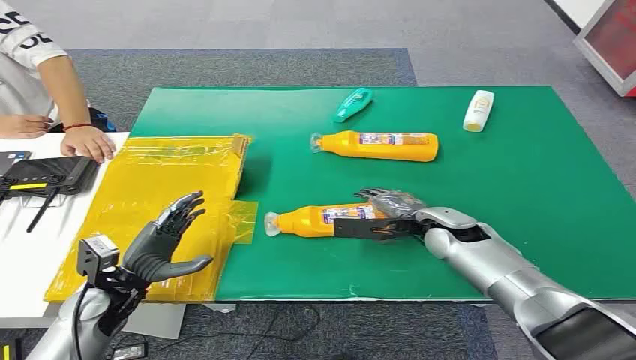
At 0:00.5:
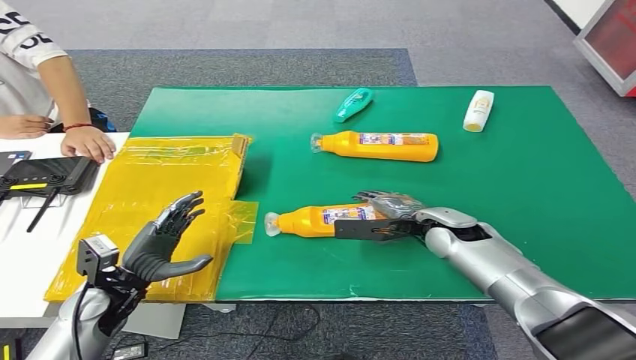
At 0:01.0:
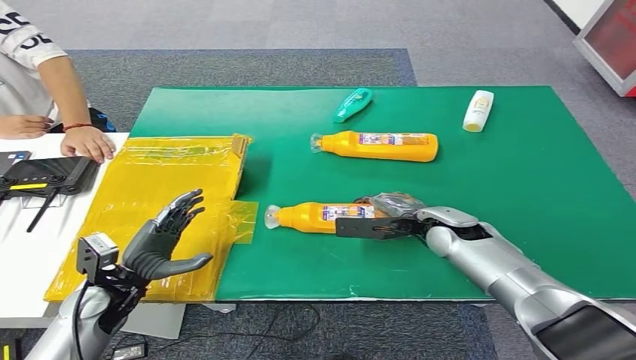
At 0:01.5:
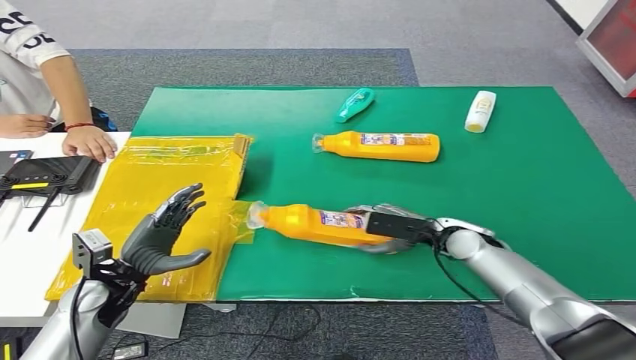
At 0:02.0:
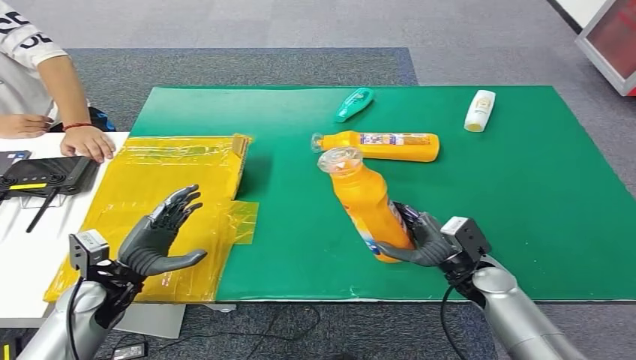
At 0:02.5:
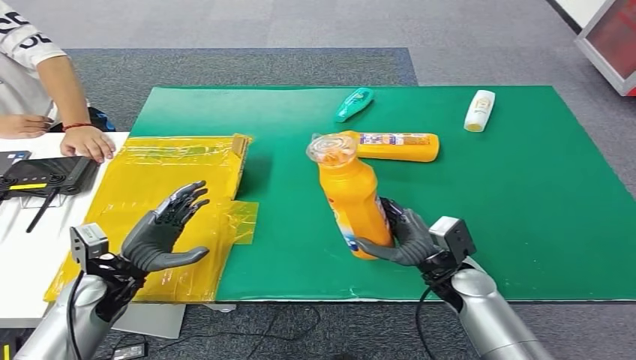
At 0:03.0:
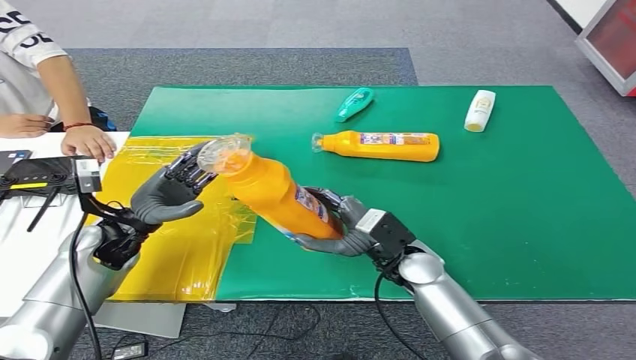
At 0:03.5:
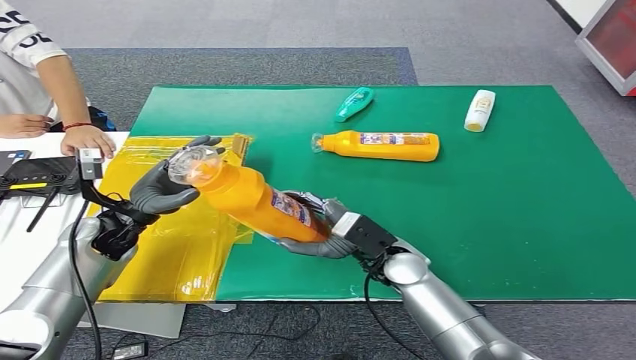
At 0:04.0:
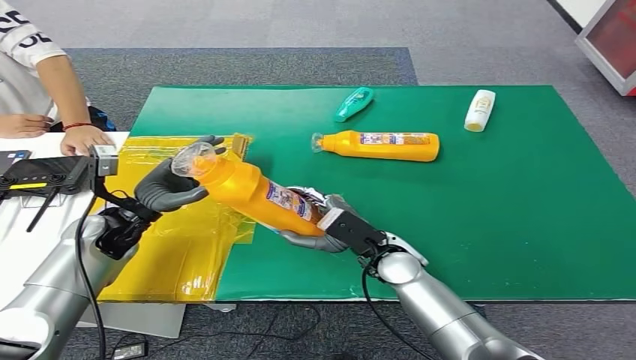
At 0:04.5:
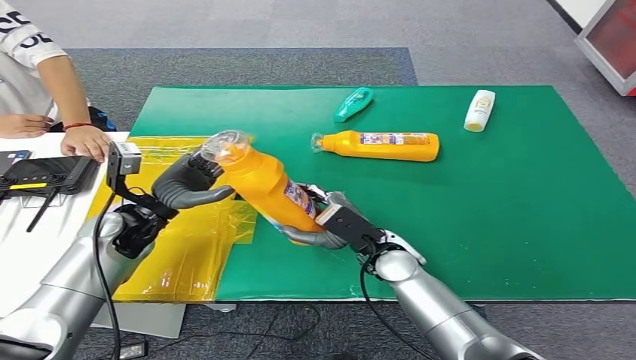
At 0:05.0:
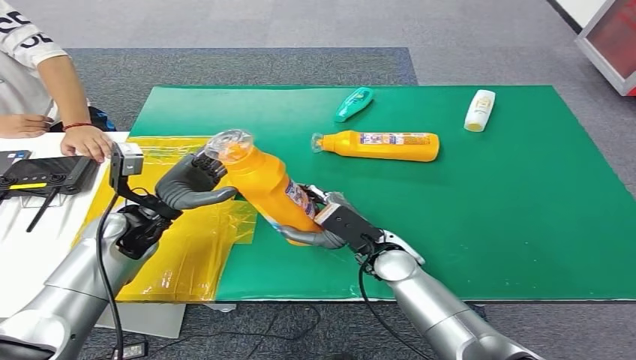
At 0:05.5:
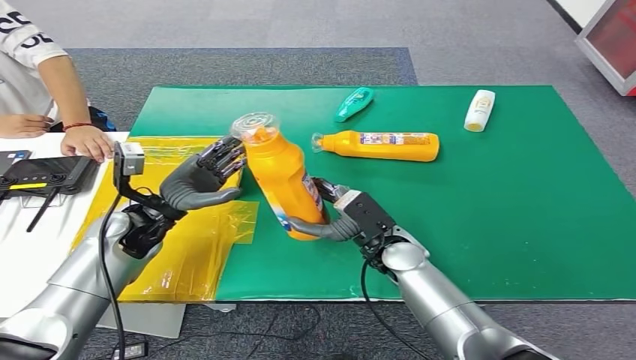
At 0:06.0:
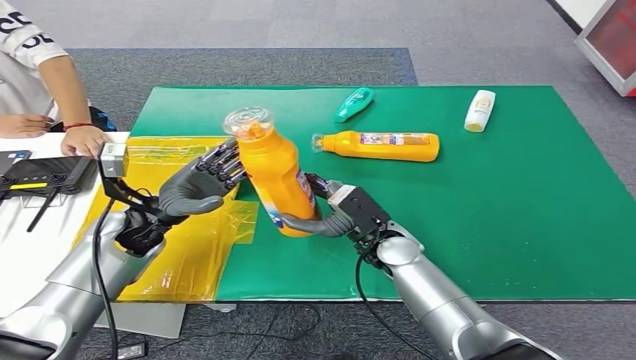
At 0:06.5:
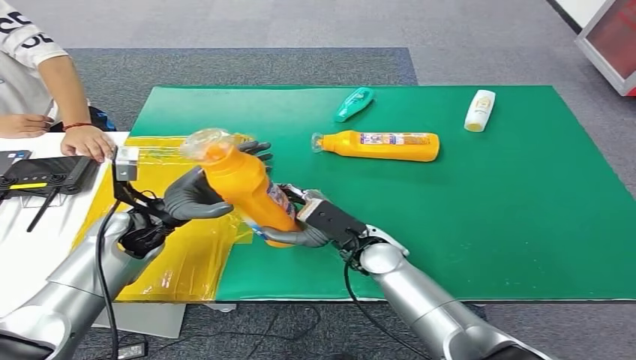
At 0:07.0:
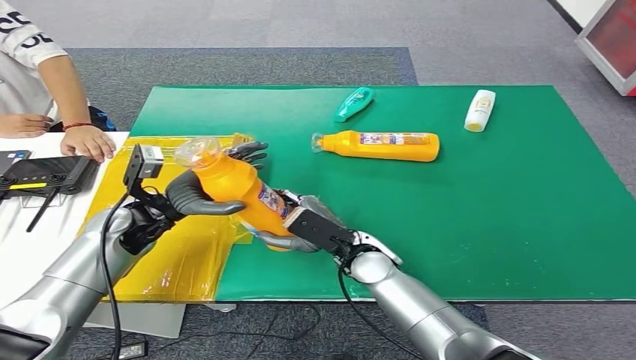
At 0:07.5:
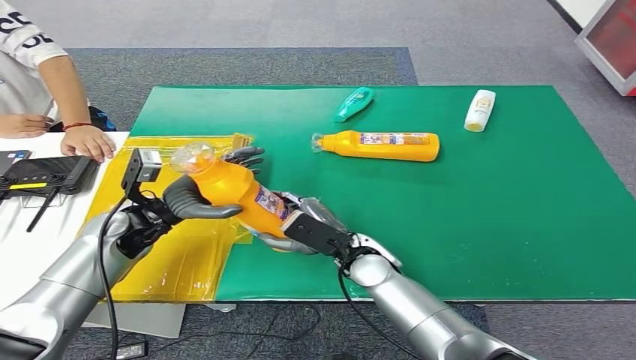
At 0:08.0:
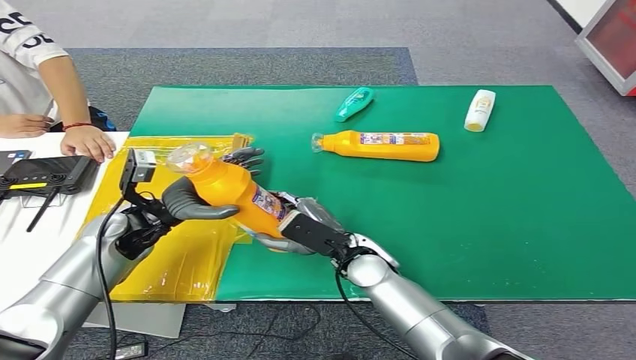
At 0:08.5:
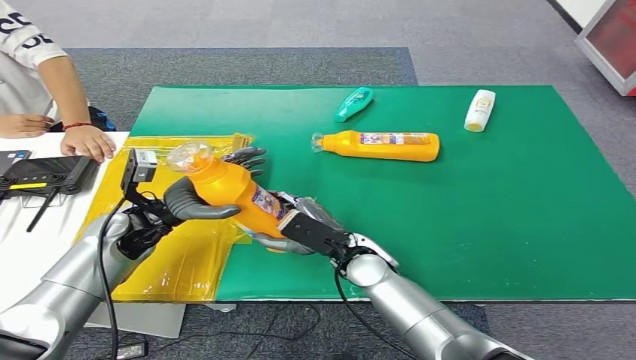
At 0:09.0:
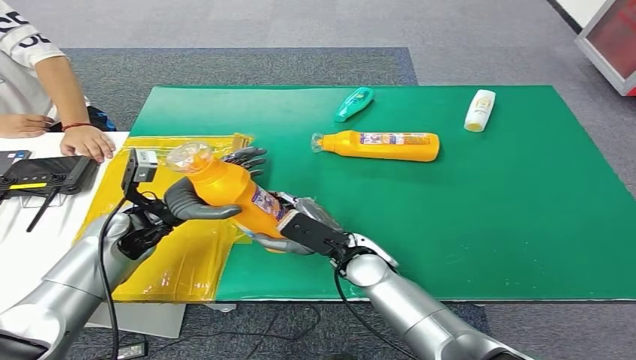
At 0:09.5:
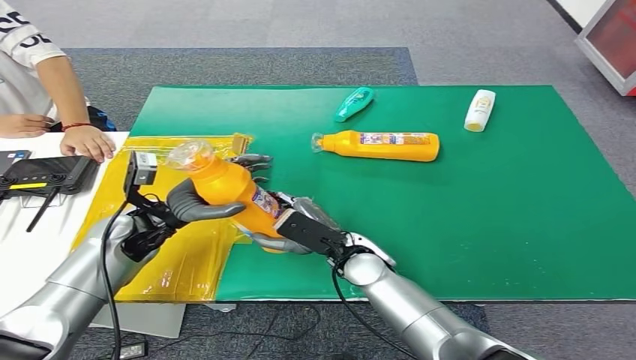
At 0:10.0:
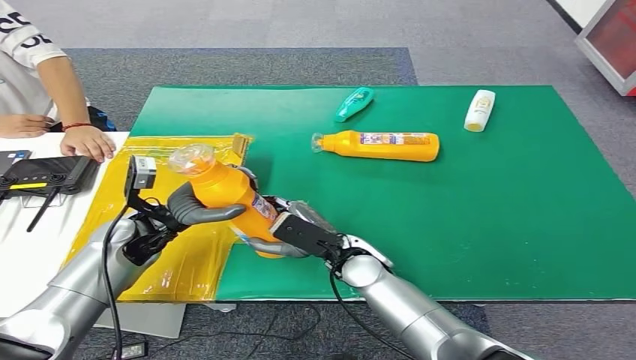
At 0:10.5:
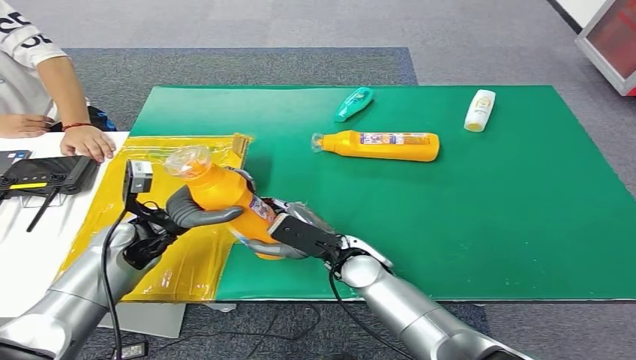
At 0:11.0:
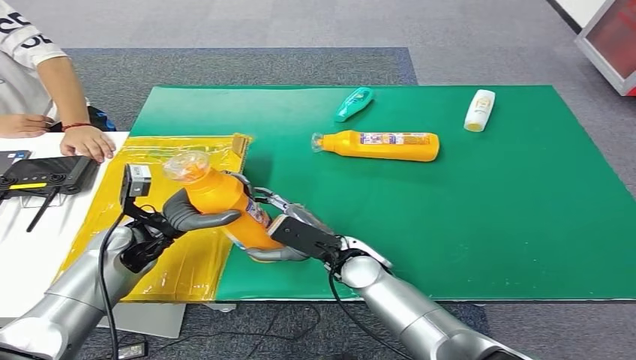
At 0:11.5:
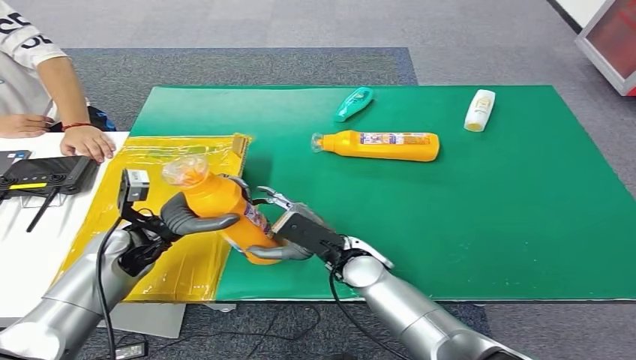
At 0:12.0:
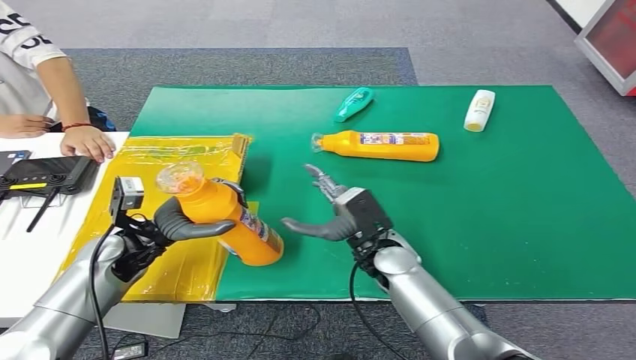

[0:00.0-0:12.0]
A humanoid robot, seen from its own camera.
Step, 0:00.0 to 0:02.0: Pick up the bottle from the table.
0:04.0 to 0:06.0: The left hand ends up roughly 5 cm from where it was.
0:08.0 to 0:10.0: The hands make only small movements.

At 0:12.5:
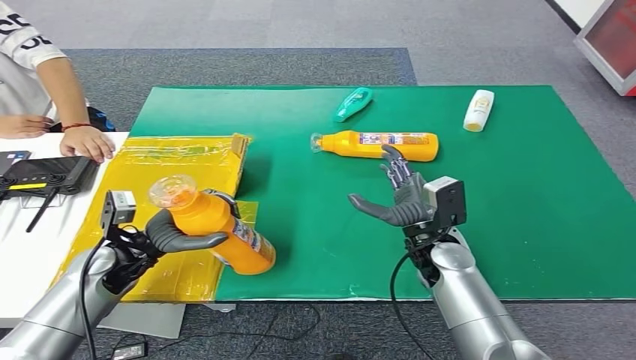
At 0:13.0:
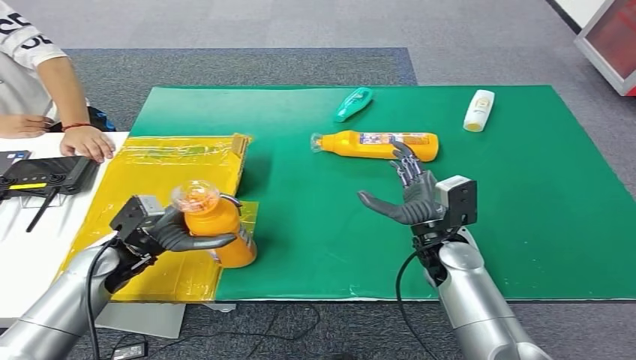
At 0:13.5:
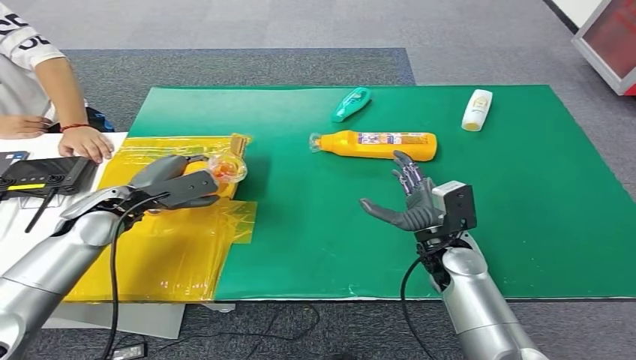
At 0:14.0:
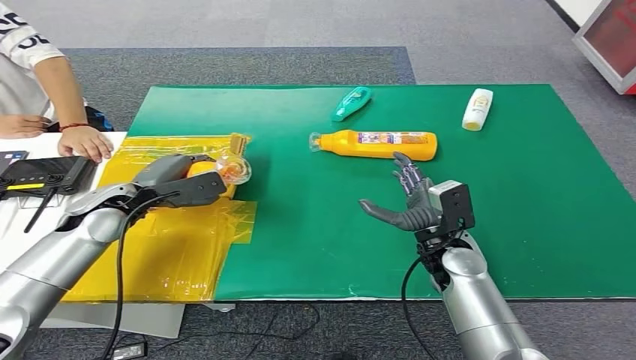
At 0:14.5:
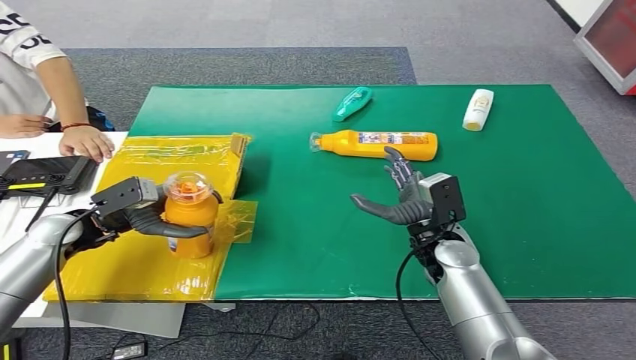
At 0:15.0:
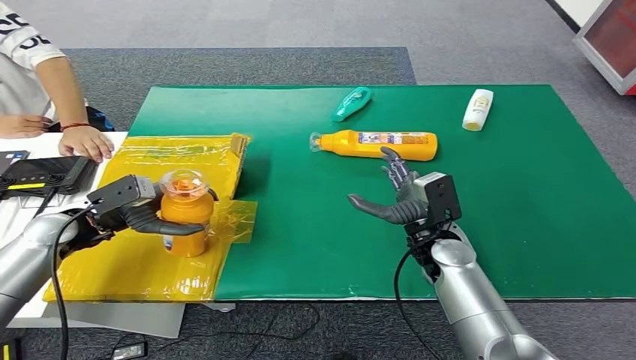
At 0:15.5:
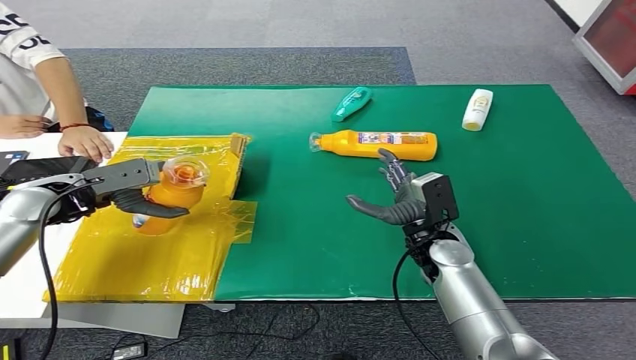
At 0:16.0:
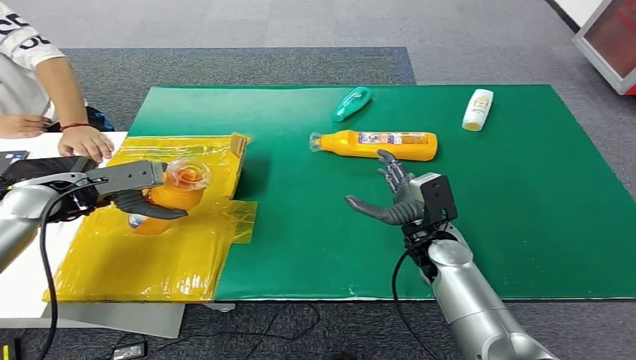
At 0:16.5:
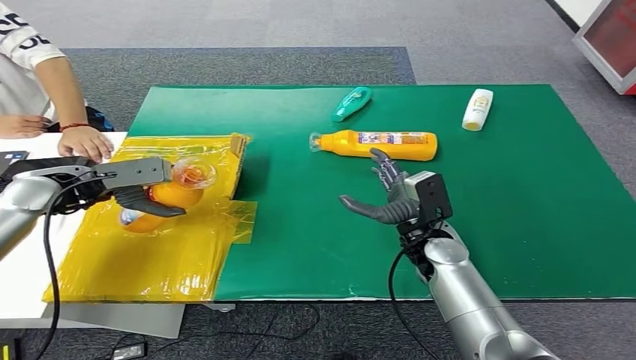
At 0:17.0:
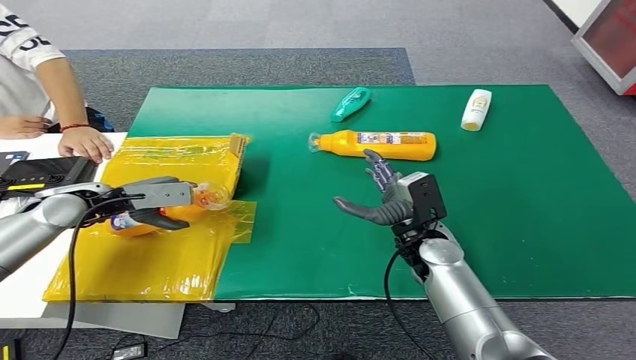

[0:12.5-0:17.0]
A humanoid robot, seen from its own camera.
Step, 0:12.5 to 0:17.0: Turn the bottle to the front side.
0:12.5 to 0:14.5: The left hand heads to the left, covering some 5 cm.

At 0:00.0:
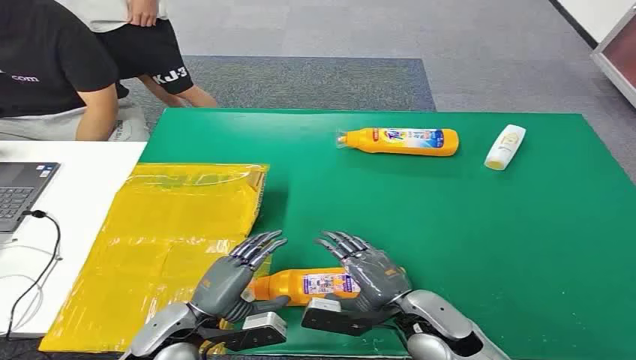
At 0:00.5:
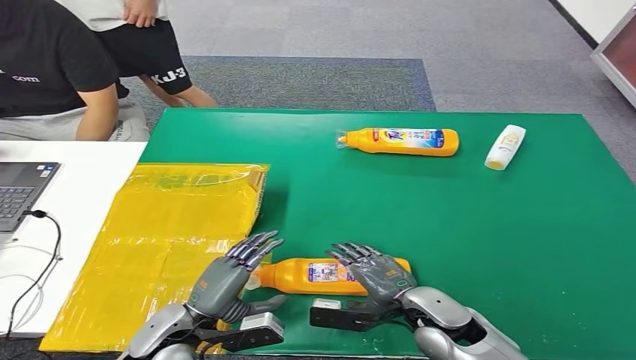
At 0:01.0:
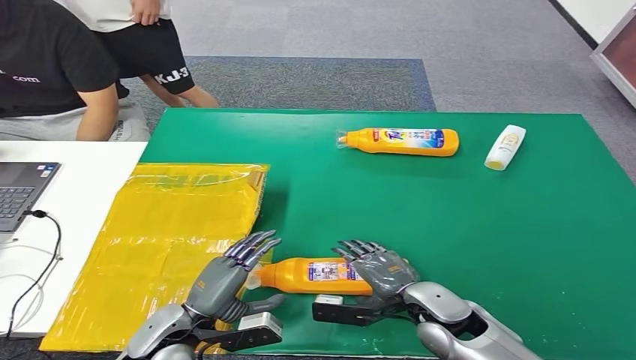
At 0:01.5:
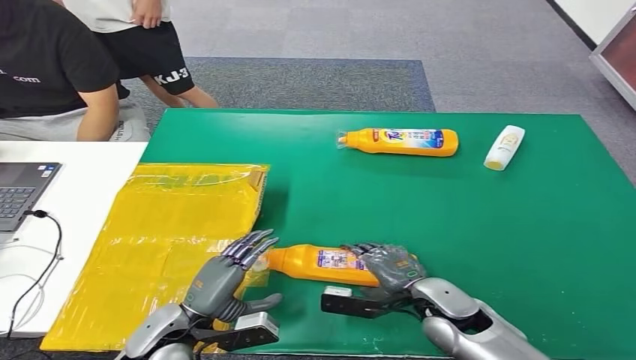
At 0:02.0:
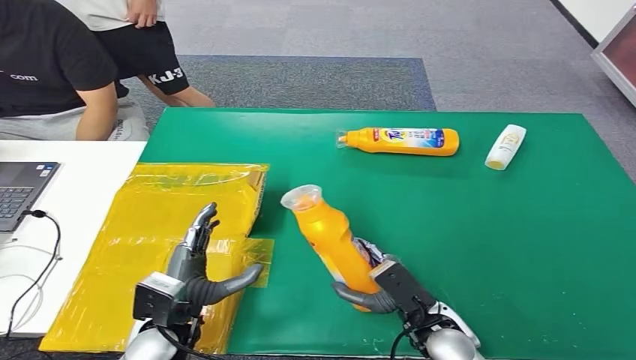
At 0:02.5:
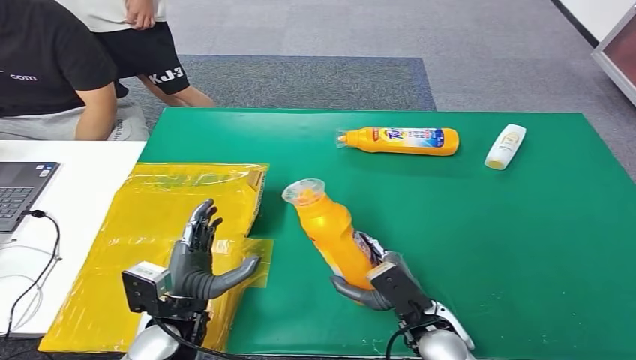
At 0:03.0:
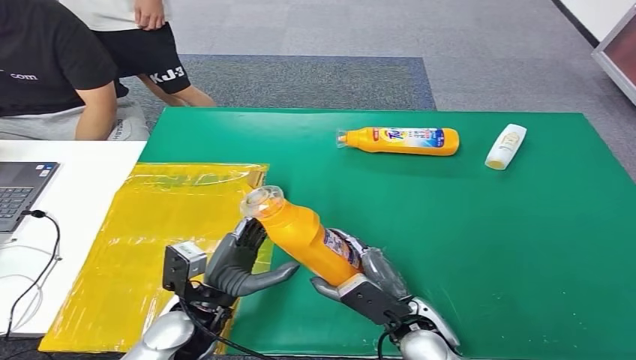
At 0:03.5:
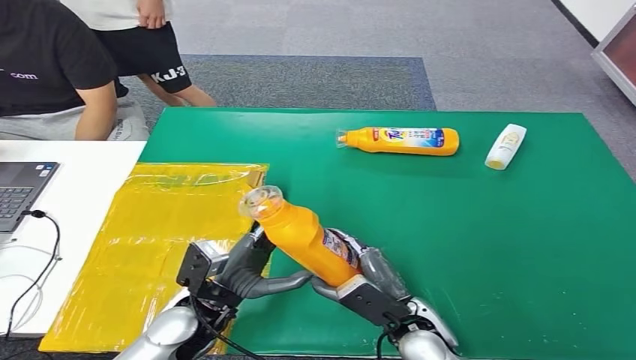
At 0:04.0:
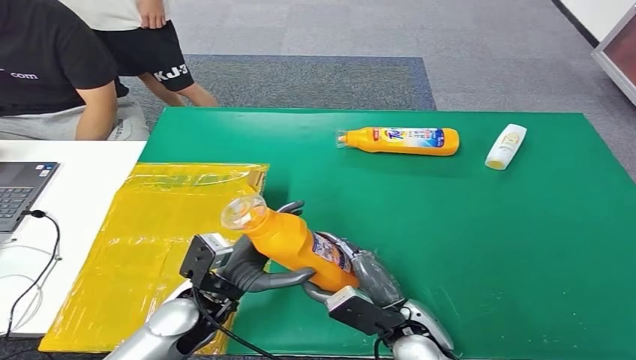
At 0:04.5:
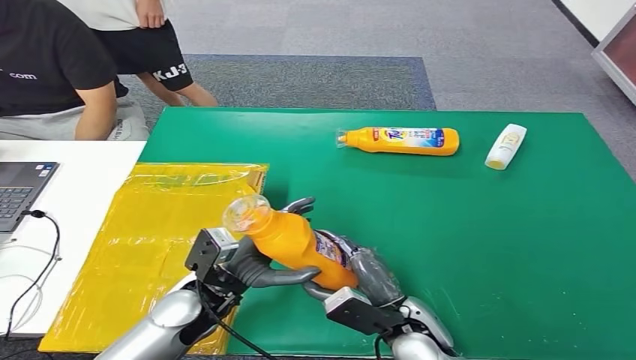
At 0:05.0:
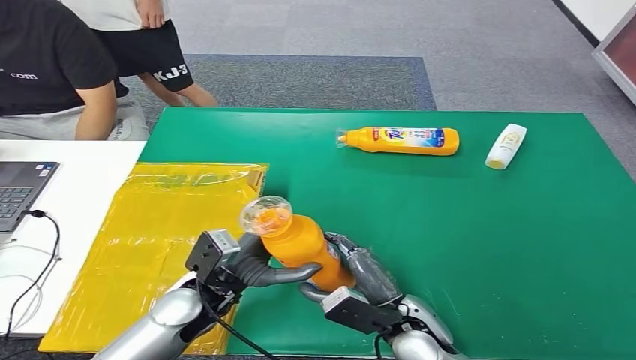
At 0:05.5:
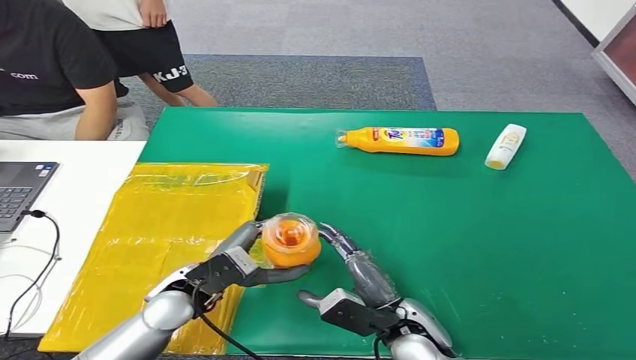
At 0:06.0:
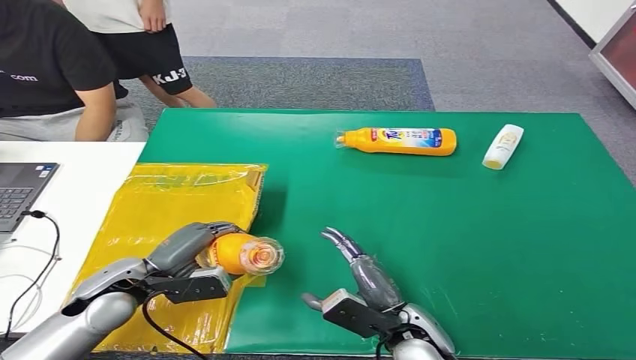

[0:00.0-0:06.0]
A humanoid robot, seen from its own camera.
Step, 0:00.0 to 0:02.5: Pick up the bottle from the table.
0:02.0 to 0:04.0: The left hand ends up some 5 cm from where it was.
0:04.0 to 0:06.0: The left hand is displaced to the left by about 10 cm.
